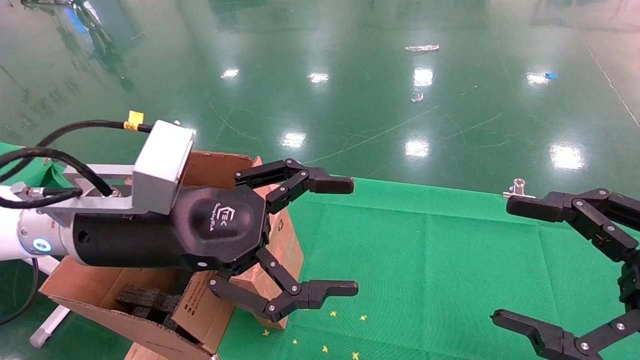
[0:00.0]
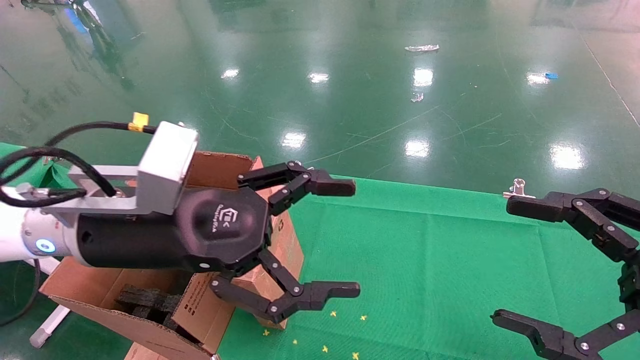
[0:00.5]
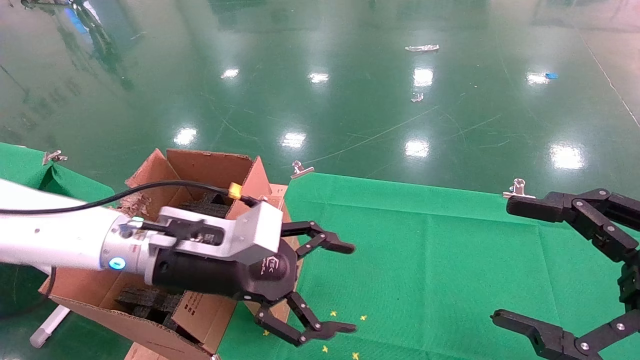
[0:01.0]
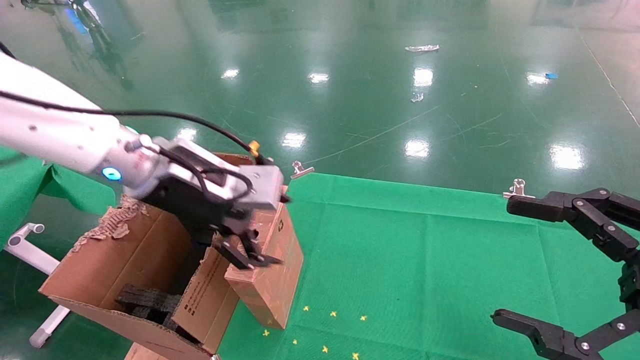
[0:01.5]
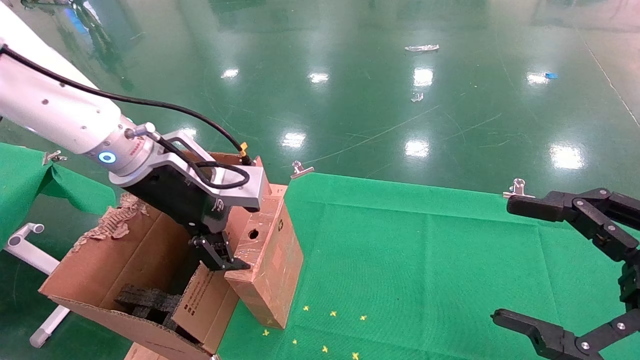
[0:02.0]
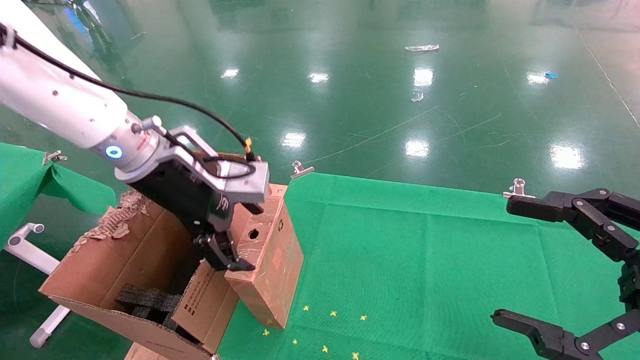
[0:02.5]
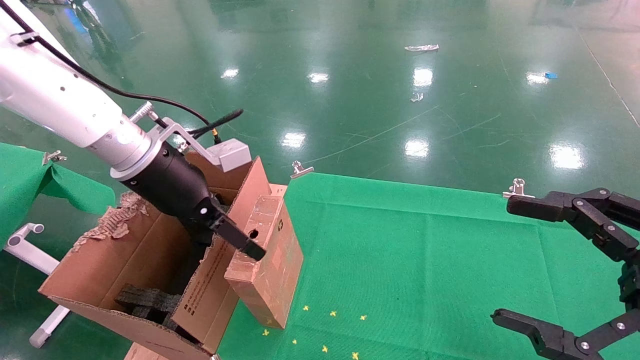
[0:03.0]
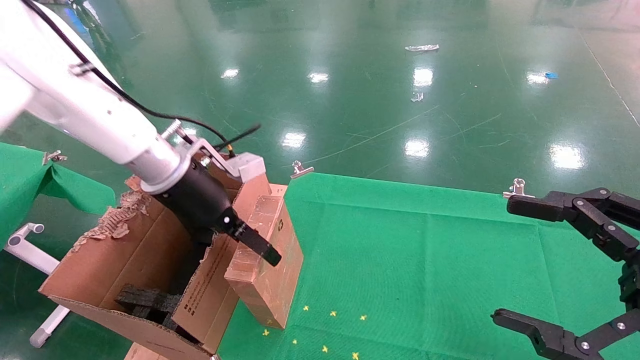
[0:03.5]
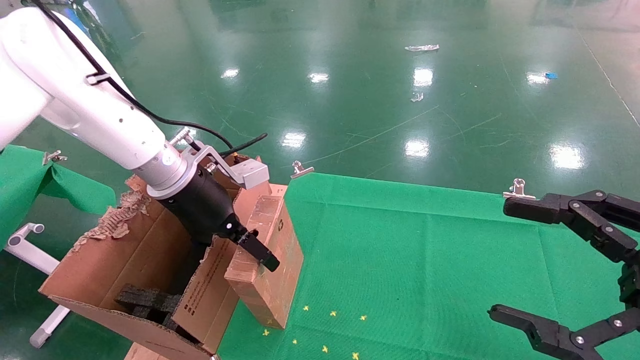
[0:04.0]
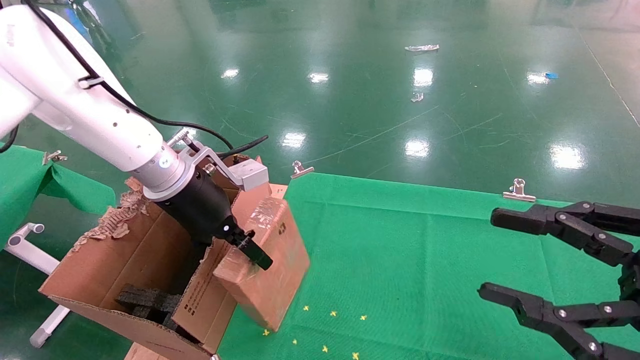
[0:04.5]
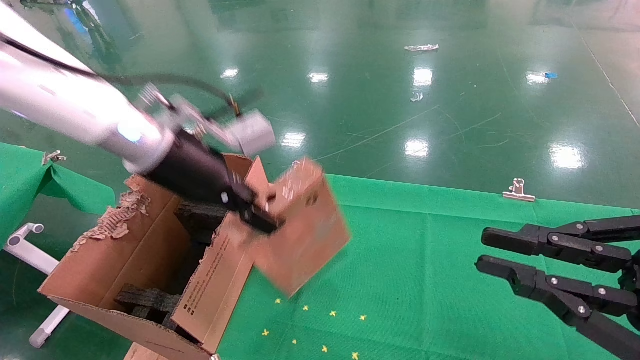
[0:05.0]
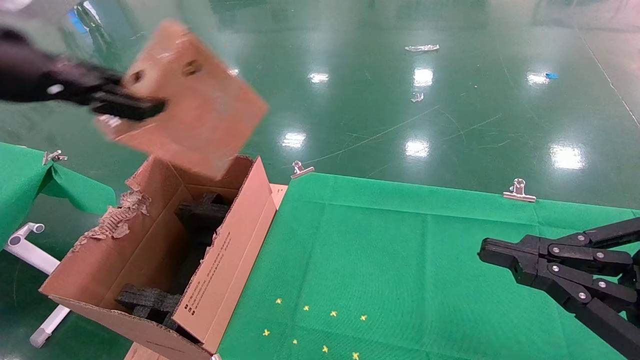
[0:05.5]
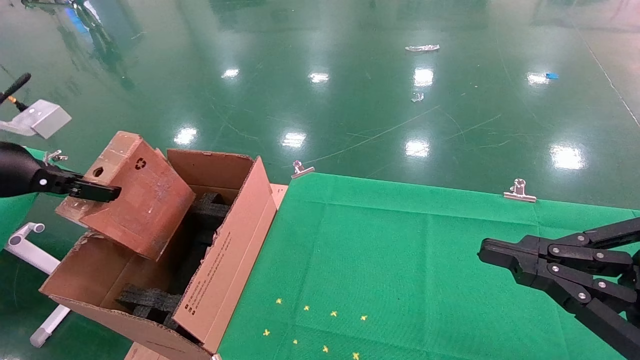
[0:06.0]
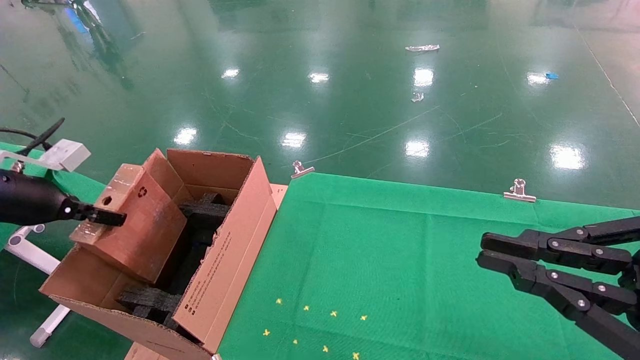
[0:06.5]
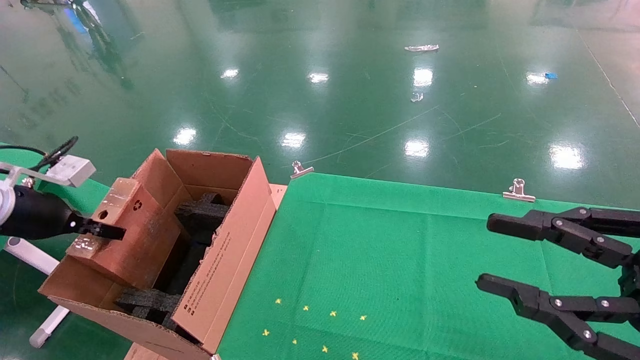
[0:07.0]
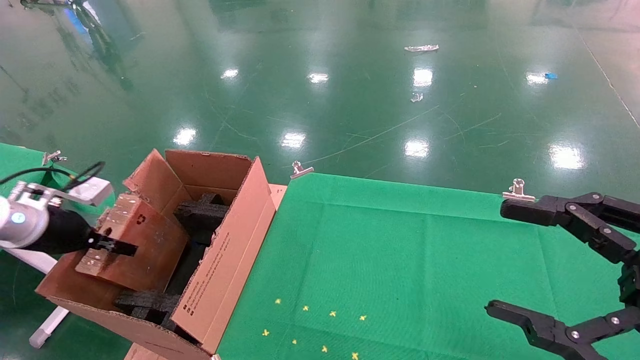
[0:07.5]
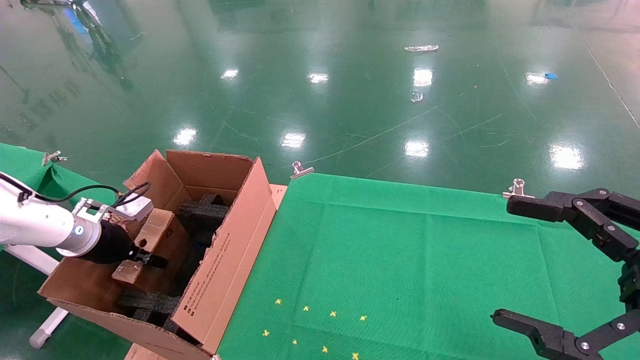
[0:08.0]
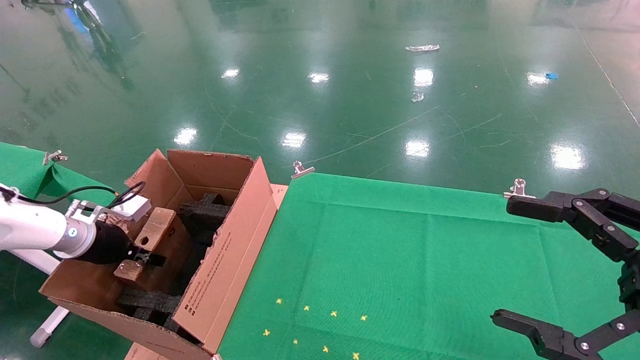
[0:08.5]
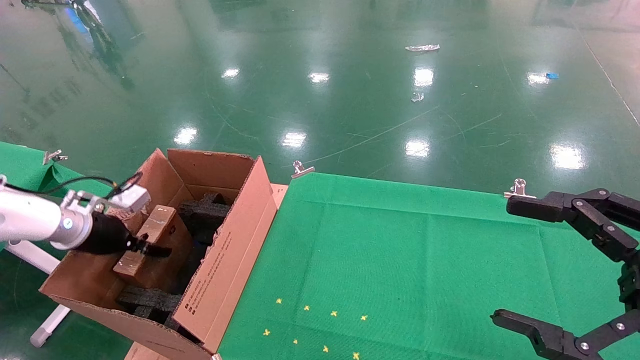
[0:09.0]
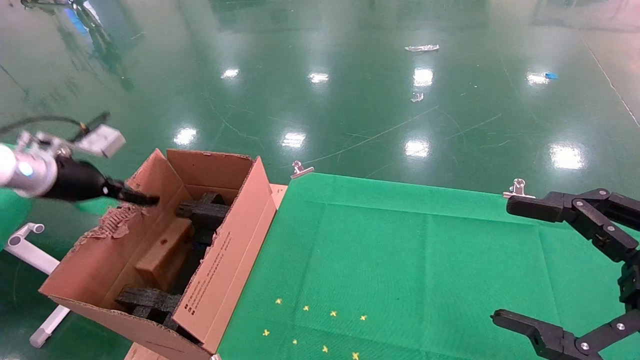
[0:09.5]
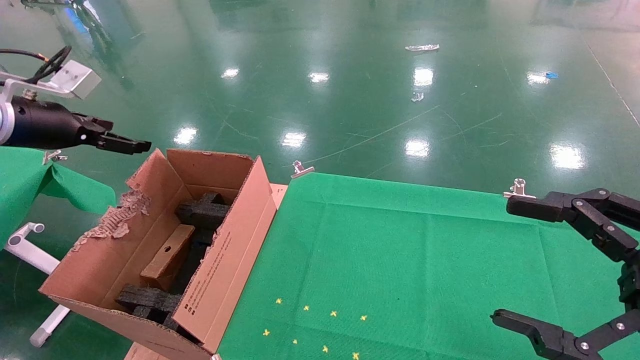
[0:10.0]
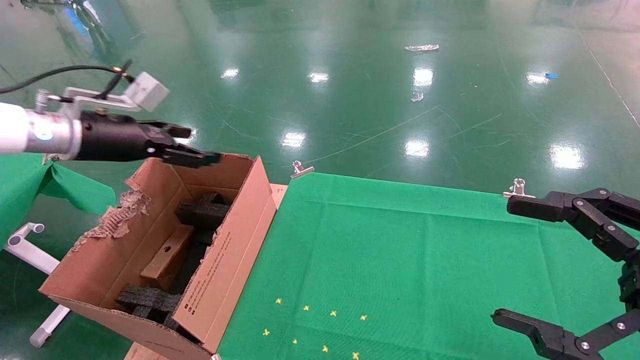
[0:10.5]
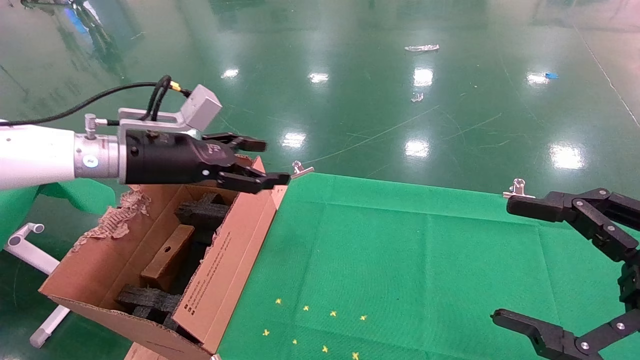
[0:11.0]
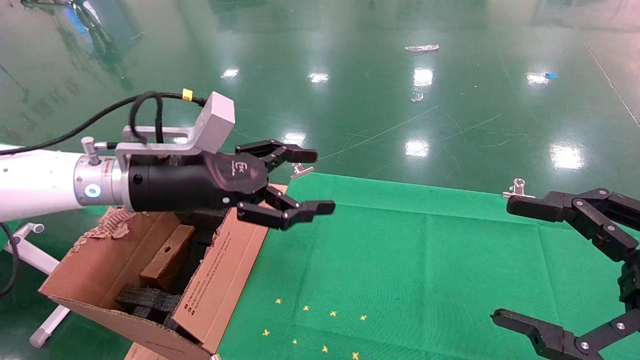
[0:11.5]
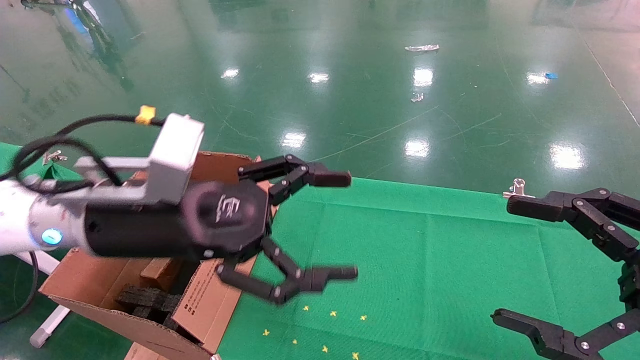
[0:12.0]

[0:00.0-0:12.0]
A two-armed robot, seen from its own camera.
Task of the whole recording: using a robotic arm to pick up a cardboard box and palace it the carton.
Step, 0:01.0 to 0:05.0: Pick up the mouse and the power cord paper box.
Step, 0:05.5 to 0:12.0: Place the mouse and the power cord paper box into the container.
0:00.0 to 0:02.0: The left gripper is displaced forward by some 10 cm.
0:02.0 to 0:04.0: The left gripper shifts roughly 5 cm forward.
0:04.0 to 0:06.0: The left gripper is displaced to the left and backward by roughly 25 cm, and closes its fingers, while the right gripper closes up.
0:06.0 to 0:08.0: The left gripper moves downward and forward, approximately 20 cm. The right gripper opens up.
0:08.0 to 0:10.0: The left gripper heads upward, covering roughly 20 cm, and opens its fingers.
0:10.0 to 0:12.0: The left gripper heads to the right, covering some 25 cm.

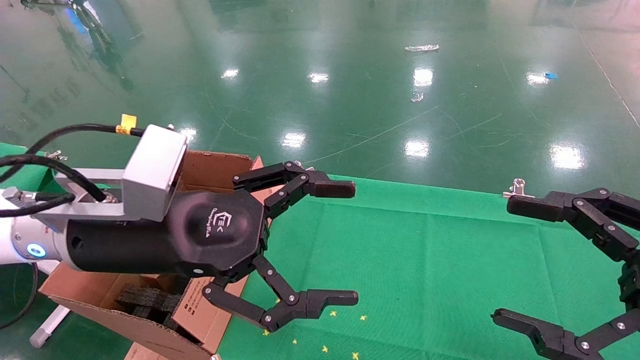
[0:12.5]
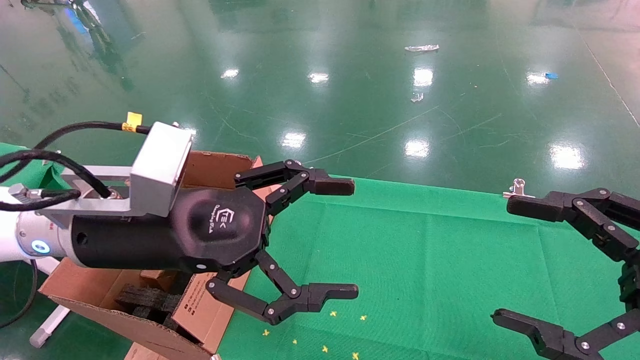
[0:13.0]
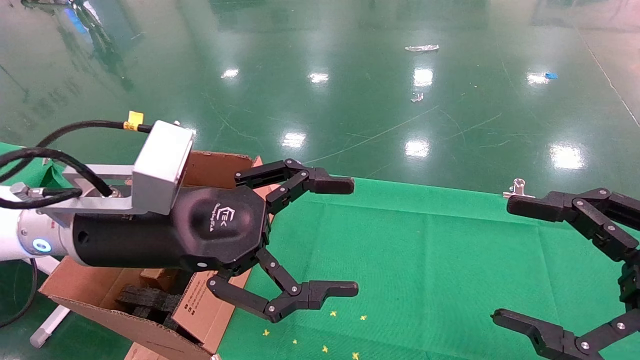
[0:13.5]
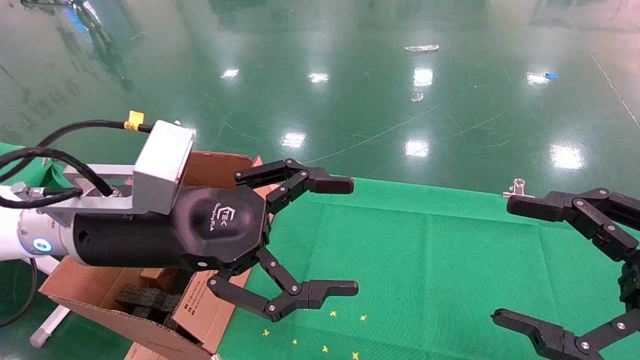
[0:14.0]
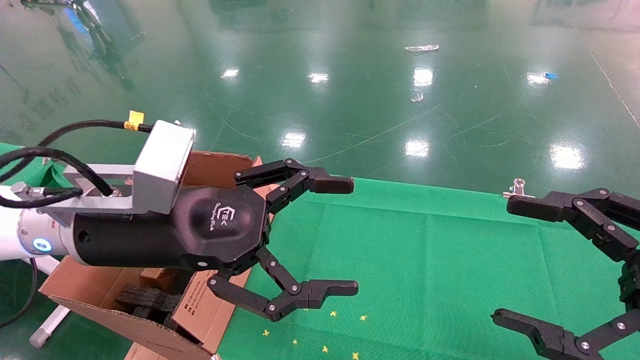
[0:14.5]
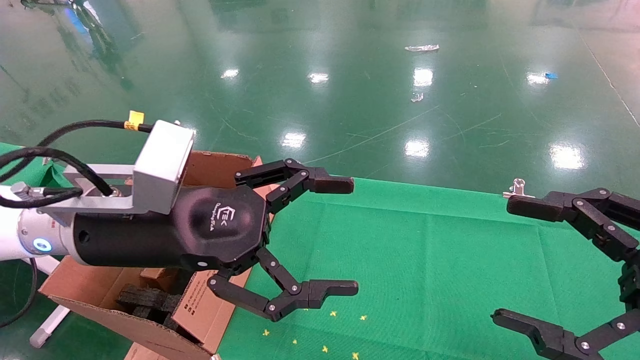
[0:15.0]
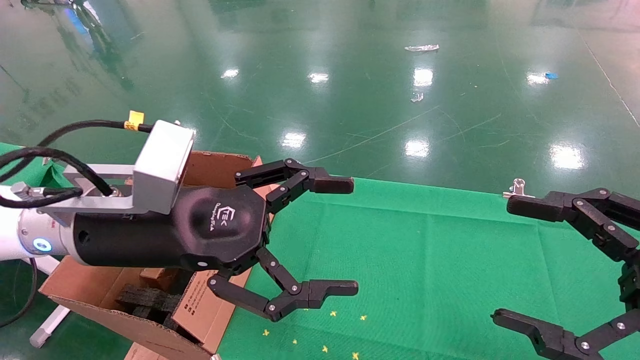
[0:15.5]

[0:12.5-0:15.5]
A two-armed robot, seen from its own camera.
Task of the whole recording: using a robotic arm to pick up a cardboard box and palace it the carton.
0:12.5 to 0:15.5: Neither gripper changes place.
